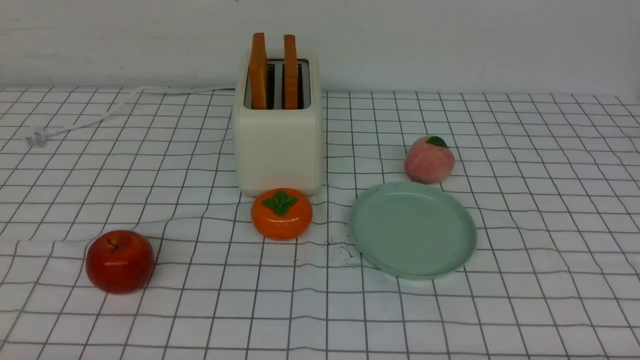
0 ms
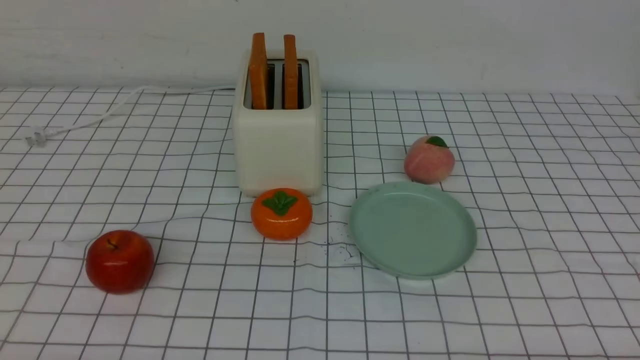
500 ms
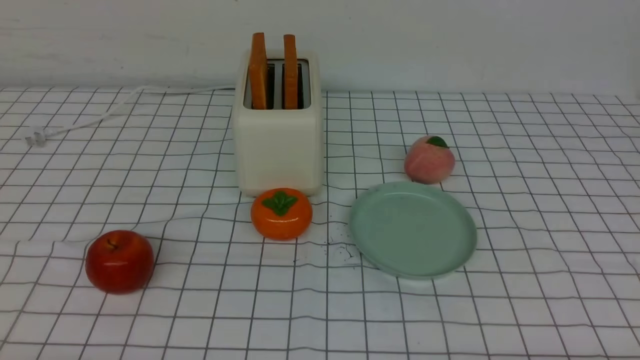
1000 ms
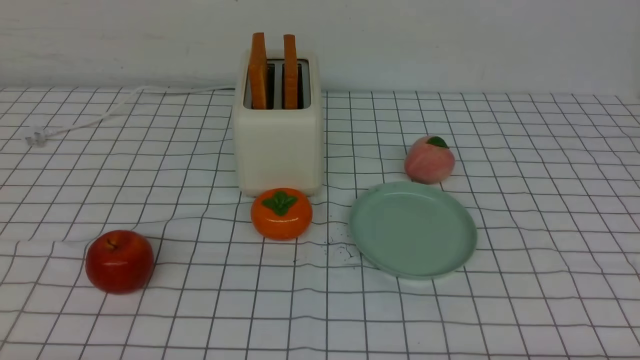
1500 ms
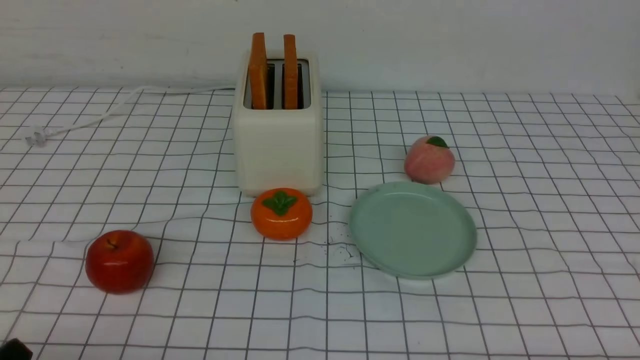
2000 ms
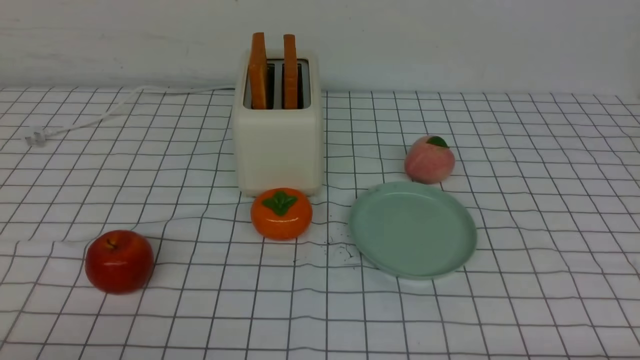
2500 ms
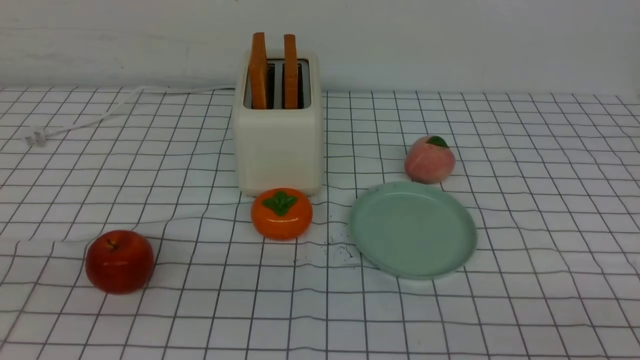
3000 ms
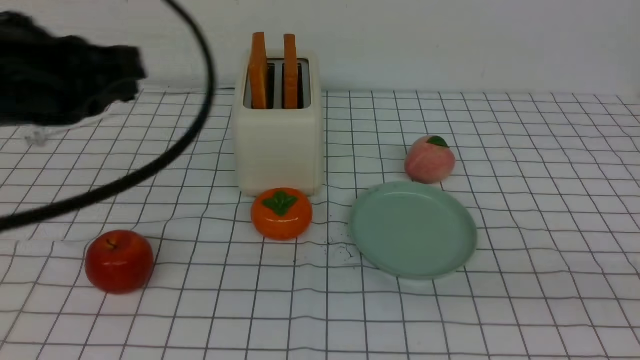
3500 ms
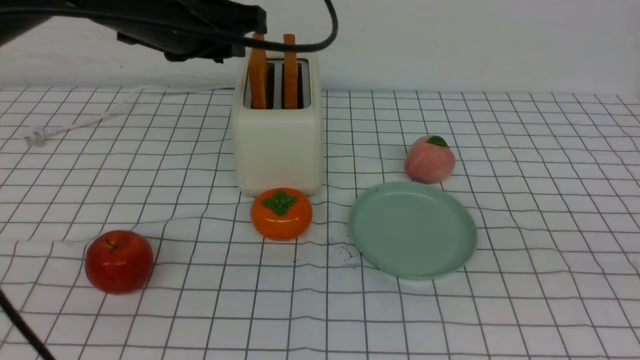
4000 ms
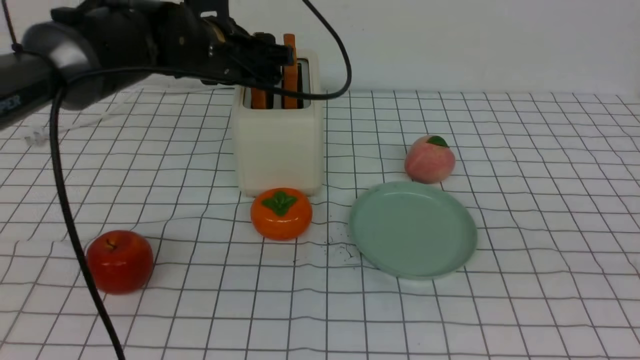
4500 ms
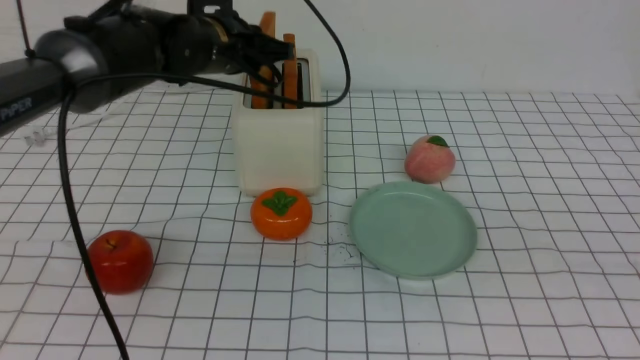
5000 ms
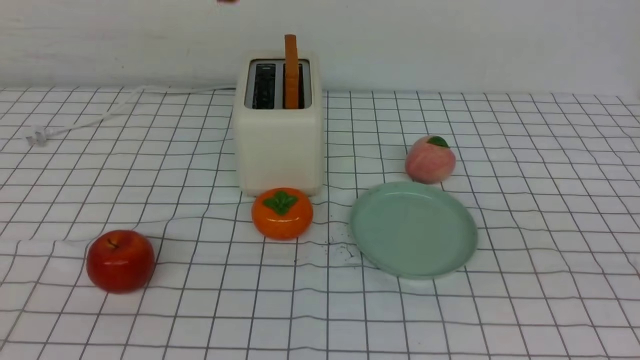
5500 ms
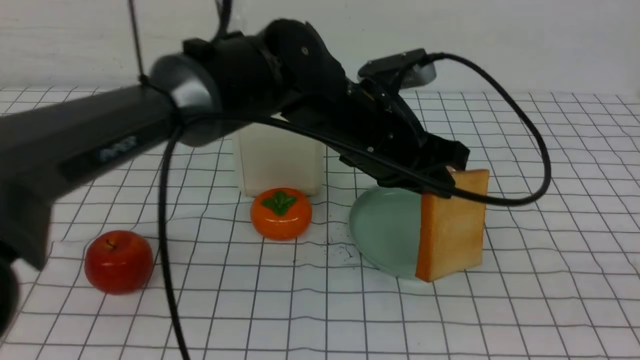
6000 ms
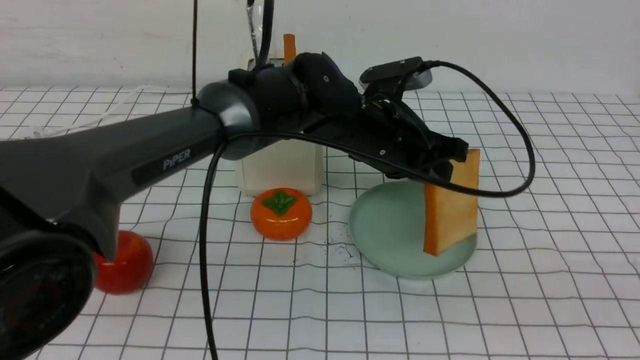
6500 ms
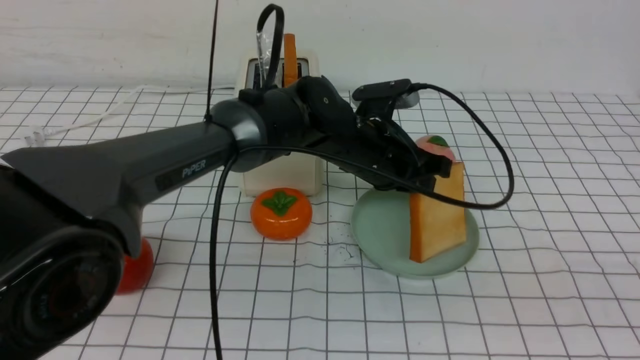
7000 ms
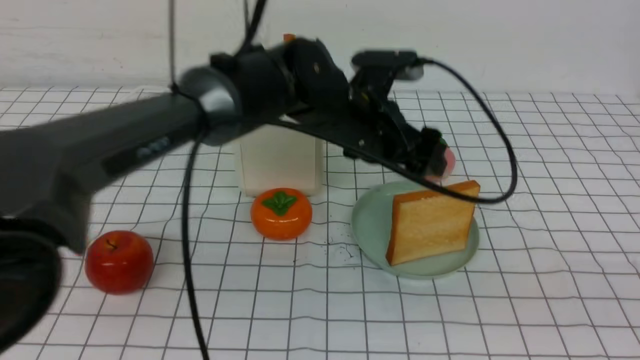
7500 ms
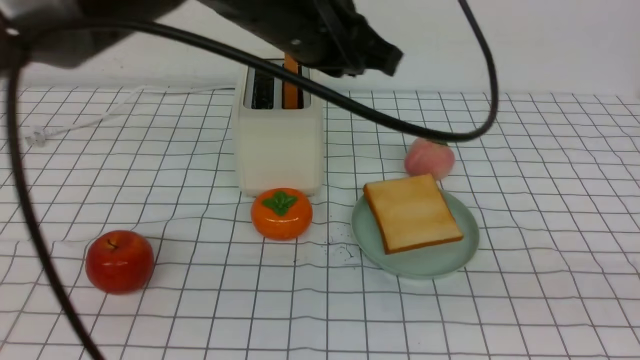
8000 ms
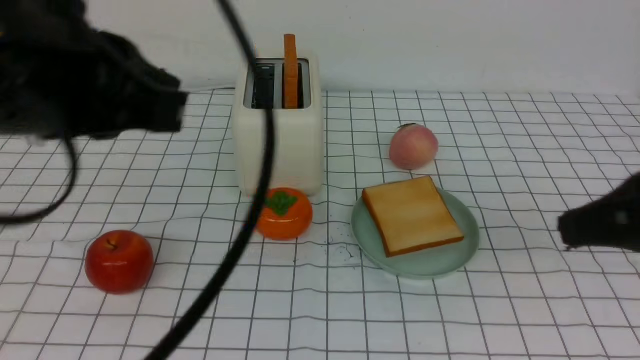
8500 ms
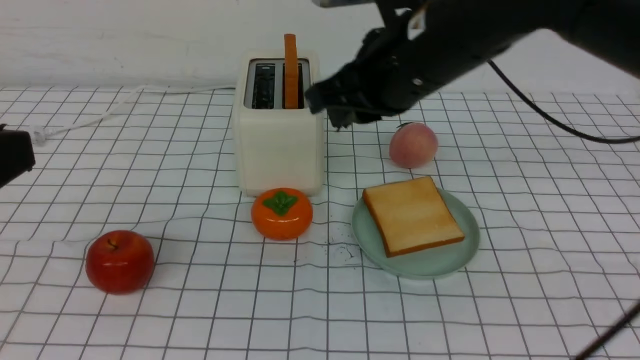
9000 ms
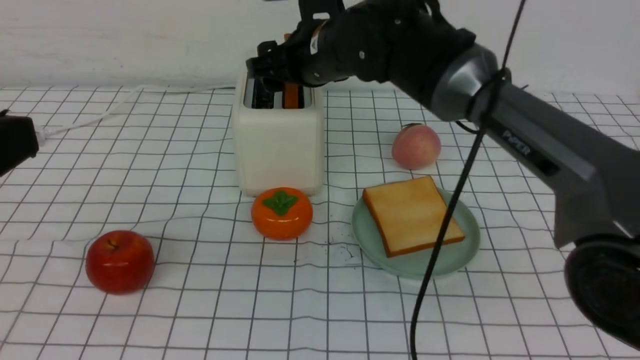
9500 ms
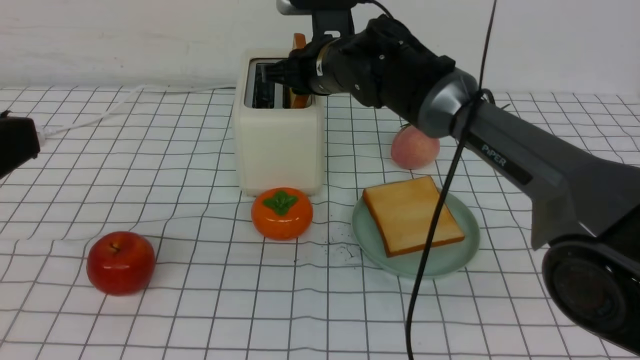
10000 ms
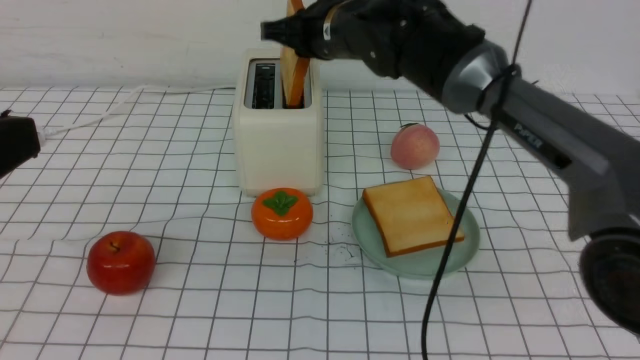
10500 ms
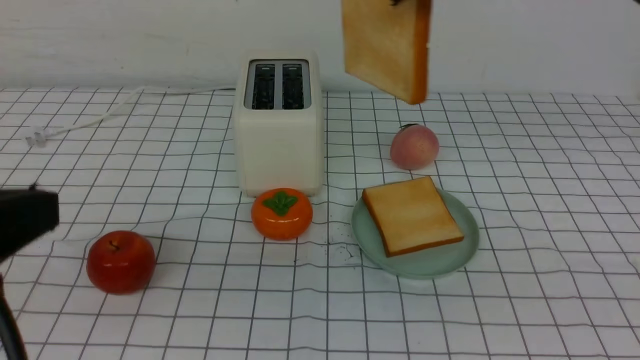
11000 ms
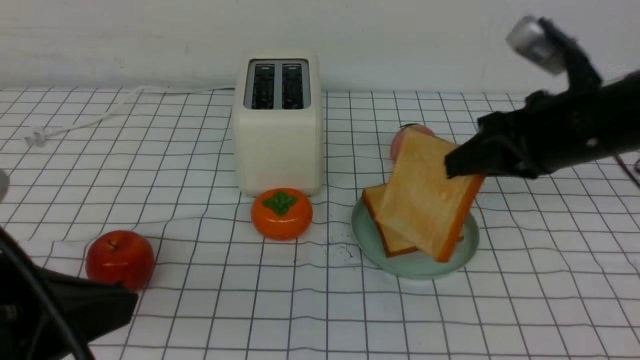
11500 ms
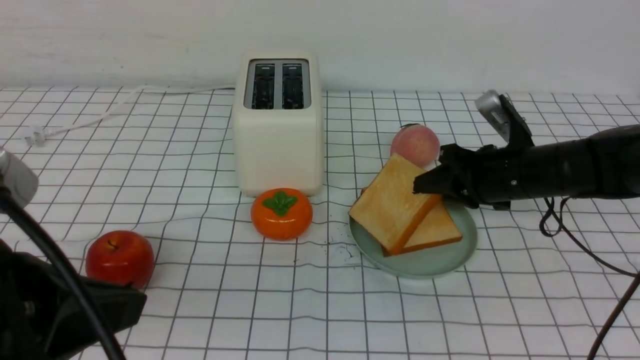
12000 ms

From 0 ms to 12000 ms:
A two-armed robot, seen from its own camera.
Task of the whole recording: take toasted bread from bread machine on white checkered table place on plate.
Step, from 0 ms to 5000 ms: use the left arm to take out a slice of bread.
Step, from 5500 ms to 8000 ms: use the left arm to put a slice of bread into the empty plate.
Step, from 8500 ms to 10500 ms: use the right arm to take out a slice of bread.
From 2000 ms to 4000 ms: The right gripper shifts approximately 25 cm upward, and closes its fingers. Meanwhile the left gripper travels forward and upward by roughly 35 cm, and closes, then opens again.
From 4000 ms to 6000 ms: The left gripper moves to the right and downward, approximately 20 cm, and closes. Meanwhile the right gripper heads backward, covering roughly 5 cm.
From 6000 ms to 8000 ms: The left gripper moves upward and to the left, approximately 15 cm, and opens, then closes again.
From 8000 ms to 10000 ms: The right gripper travels forward and to the left by roughly 50 cm, and opens, while the left gripper goes some 30 cm backward and to the left.
From 10000 ms to 12000 ms: The right gripper heads to the right, covering some 20 cm, and moves approximately 20 cm upward and comes back. Meanwhile the left gripper ends up approximately 5 cm from where it was.

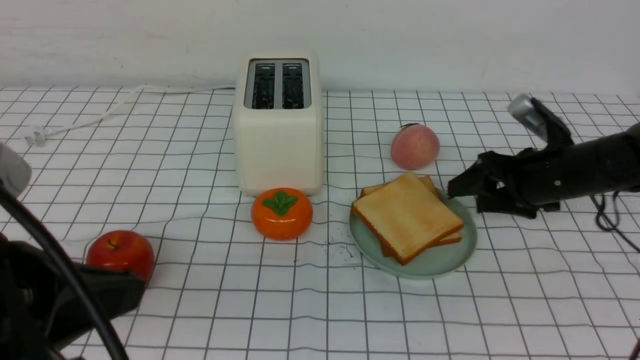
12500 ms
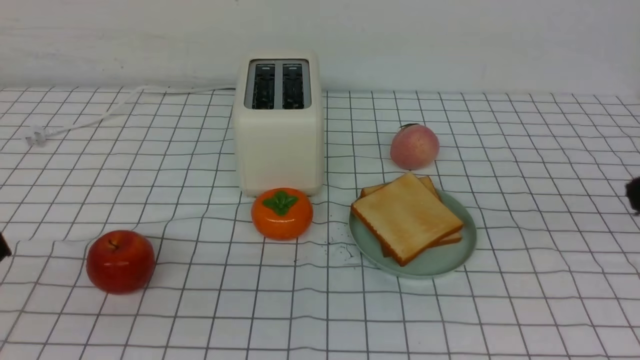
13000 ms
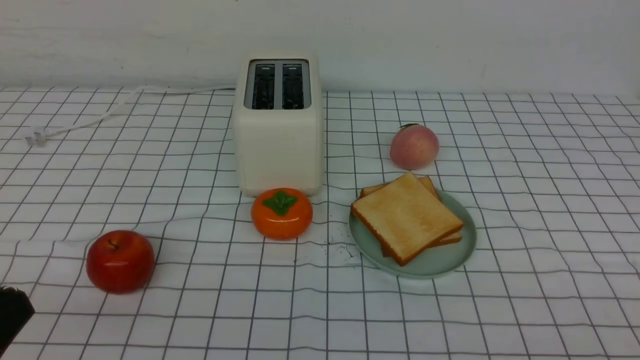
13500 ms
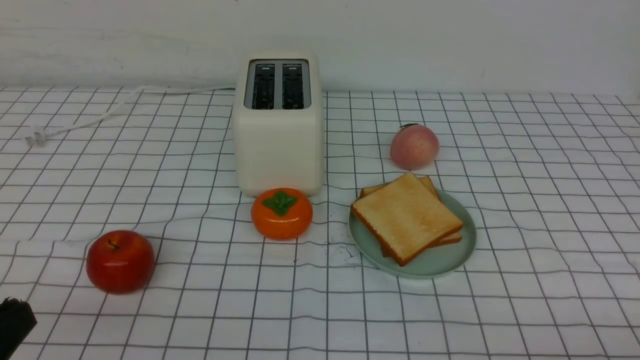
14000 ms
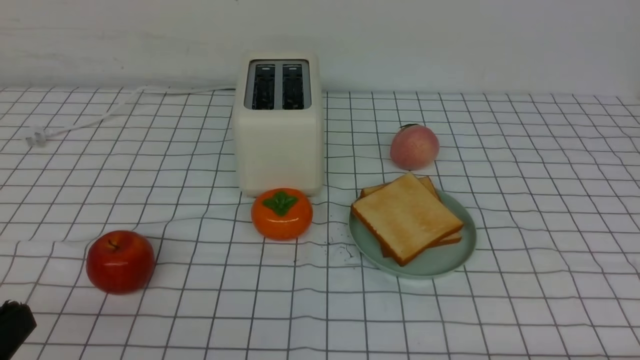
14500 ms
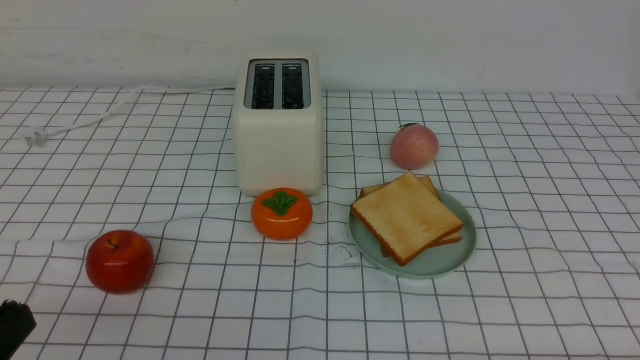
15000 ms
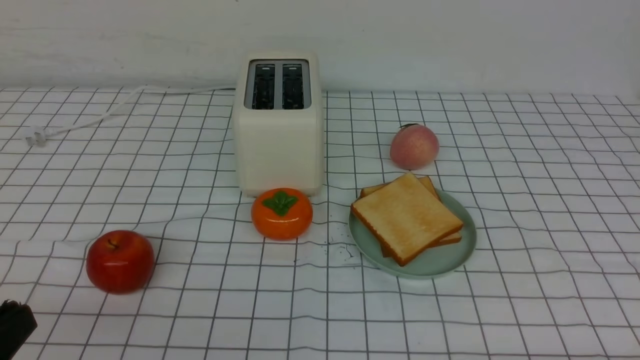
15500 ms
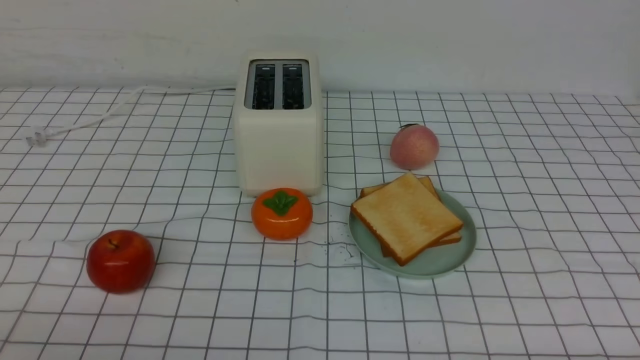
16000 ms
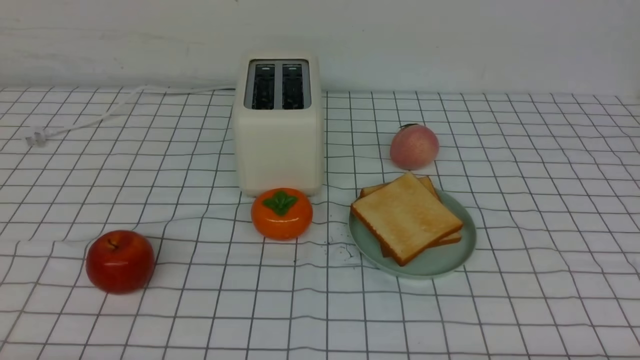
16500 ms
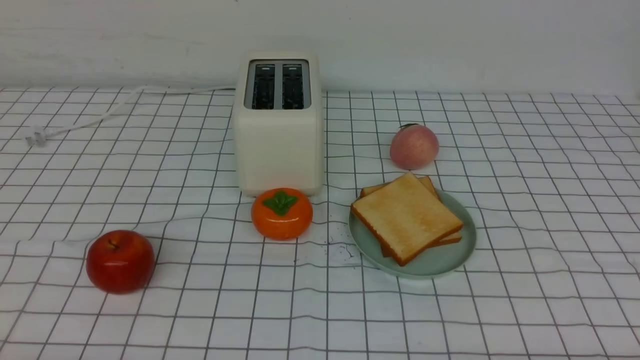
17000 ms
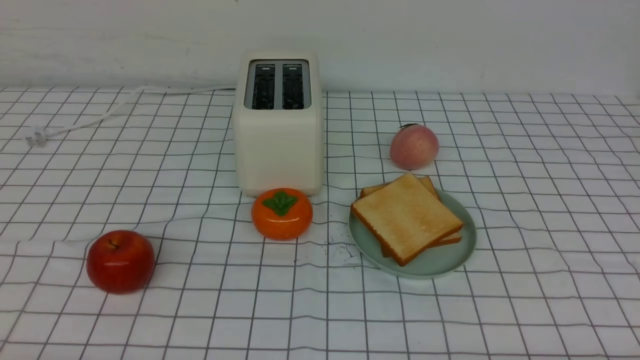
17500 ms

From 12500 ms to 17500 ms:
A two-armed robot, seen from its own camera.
Task of the whole recording: take toasted bread from bread machine on white checkered table place on plate.
From 12500 ms to 15000 ms: The right gripper heads backward, covering approximately 35 cm, and closes; the left gripper moves downward and to the left, roughly 10 cm.
From 15000 ms to 17500 ms: The left gripper is displaced downward by roughly 10 cm.

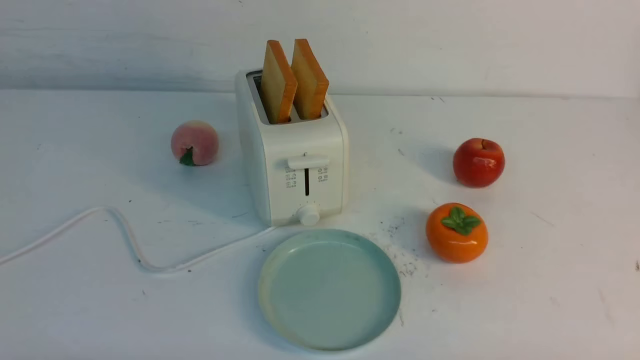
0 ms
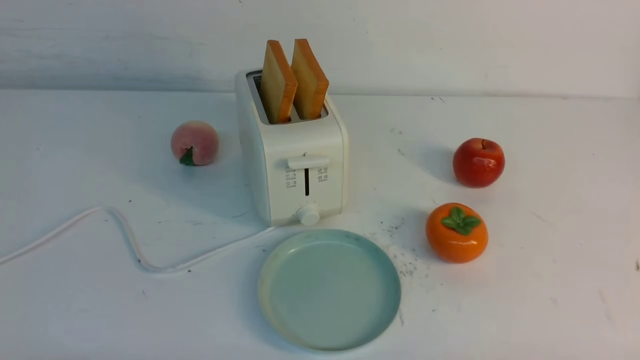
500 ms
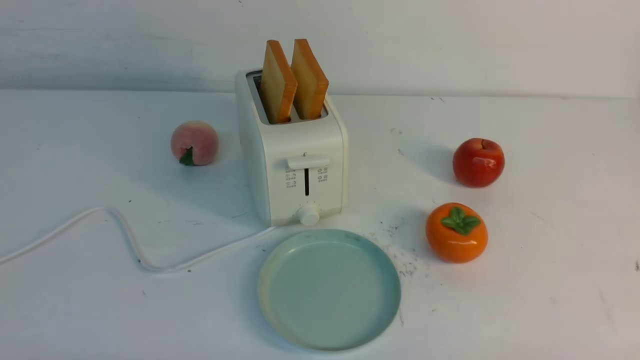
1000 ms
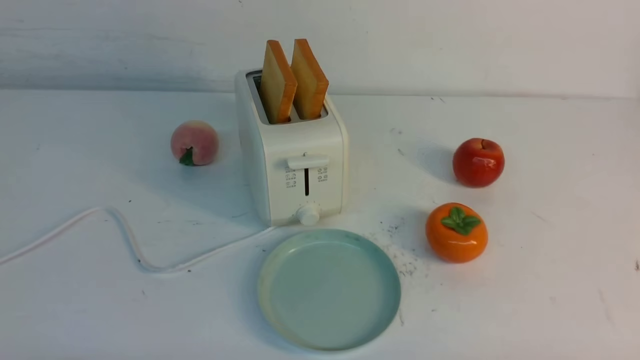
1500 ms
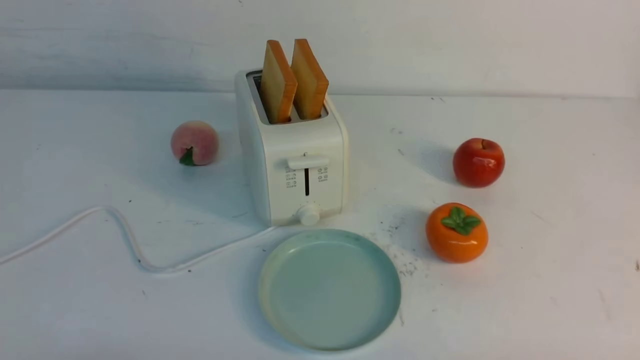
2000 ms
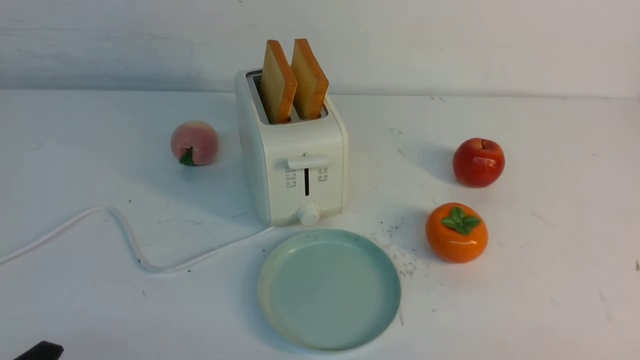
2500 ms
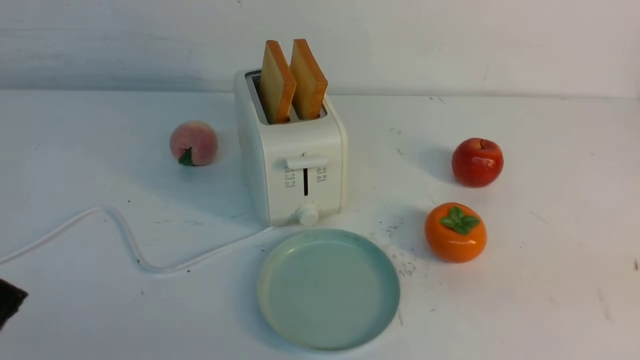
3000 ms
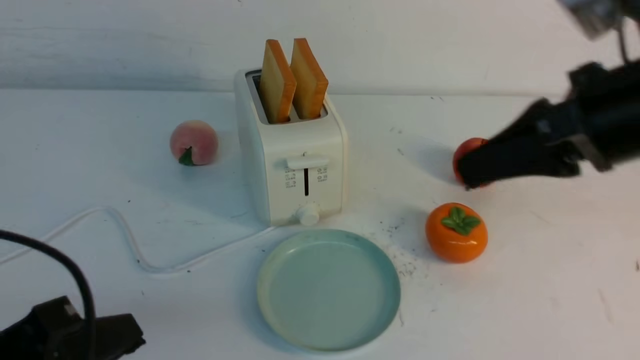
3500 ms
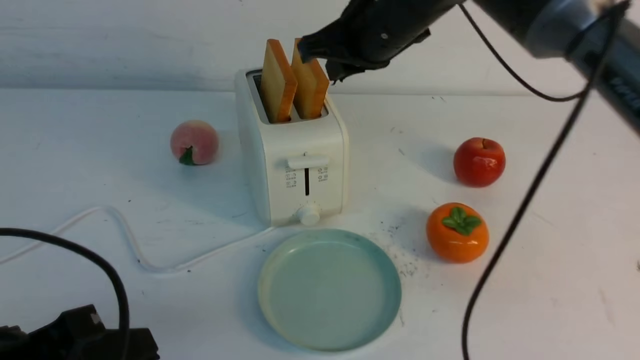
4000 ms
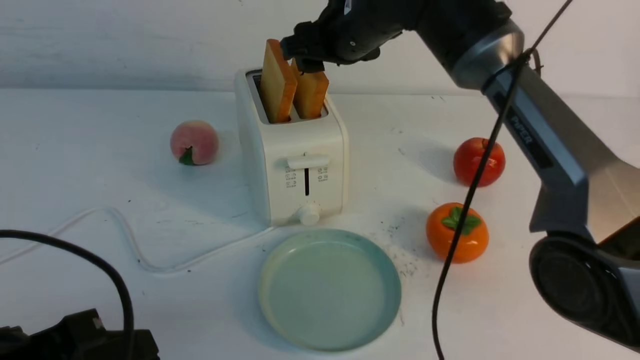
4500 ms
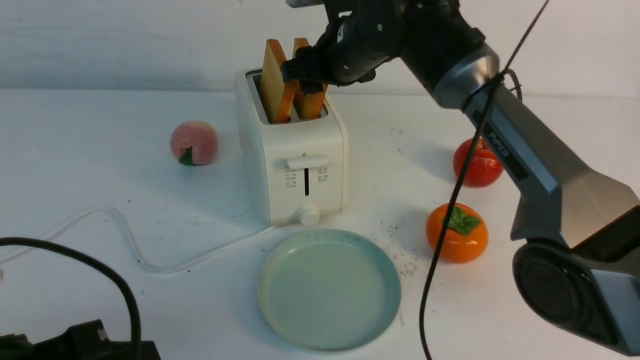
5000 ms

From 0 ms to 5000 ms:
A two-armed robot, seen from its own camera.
Task of the whole recording: take toasted bread from bread machine on white table place on plate.
From 2500 ms to 5000 ms: The right gripper heads forward and to the left, covering some 50 cm, and opens. The left gripper shifts roughly 5 cm forward, and closes its fingers.
